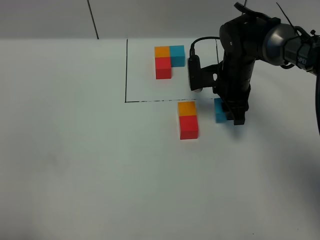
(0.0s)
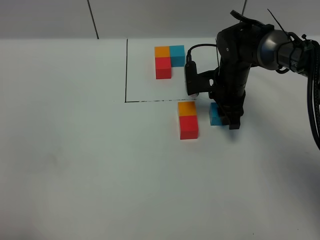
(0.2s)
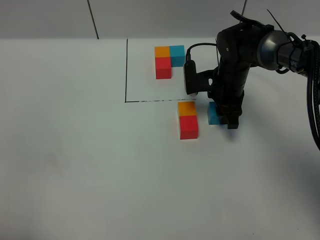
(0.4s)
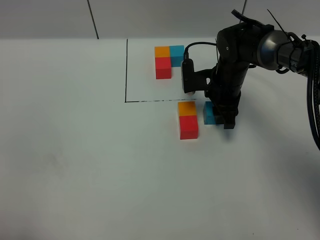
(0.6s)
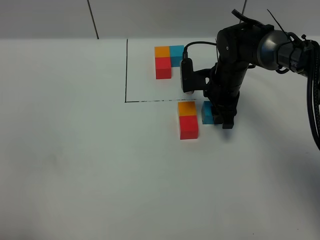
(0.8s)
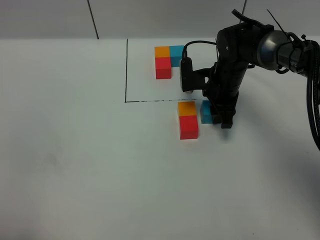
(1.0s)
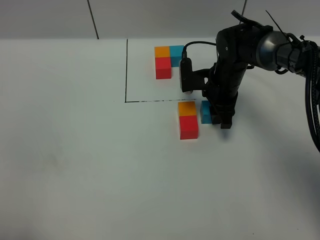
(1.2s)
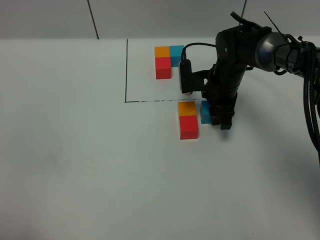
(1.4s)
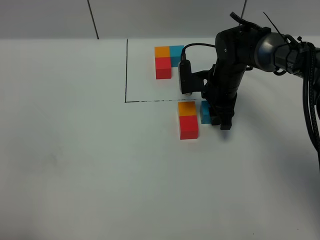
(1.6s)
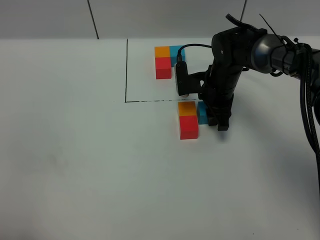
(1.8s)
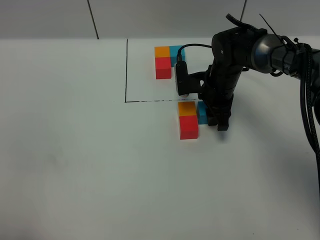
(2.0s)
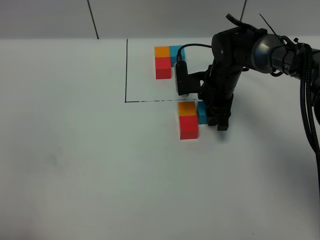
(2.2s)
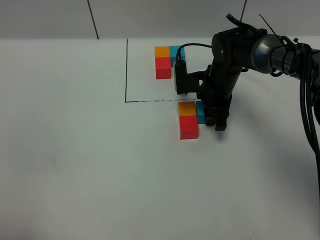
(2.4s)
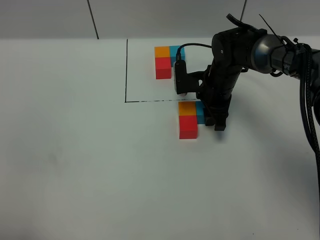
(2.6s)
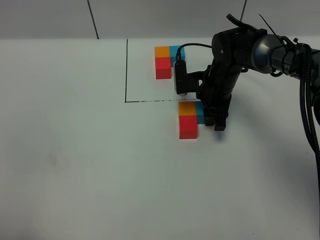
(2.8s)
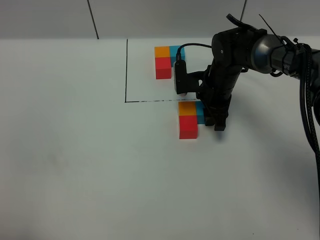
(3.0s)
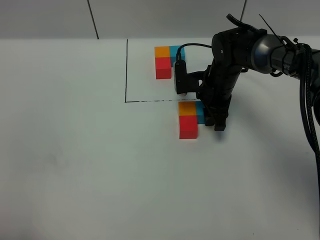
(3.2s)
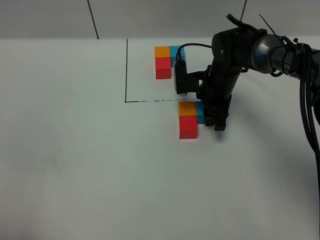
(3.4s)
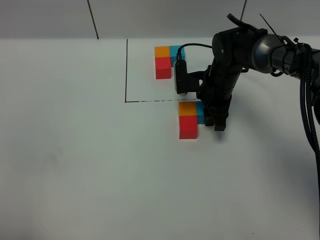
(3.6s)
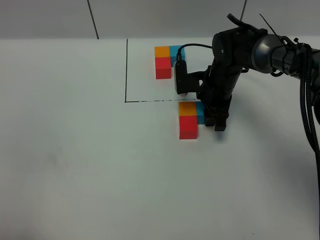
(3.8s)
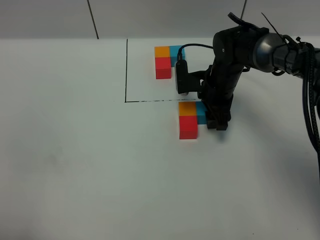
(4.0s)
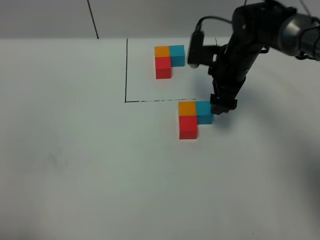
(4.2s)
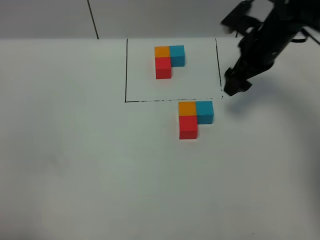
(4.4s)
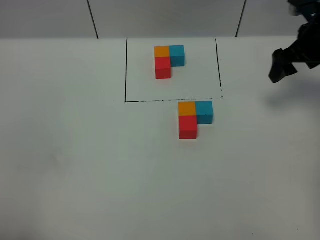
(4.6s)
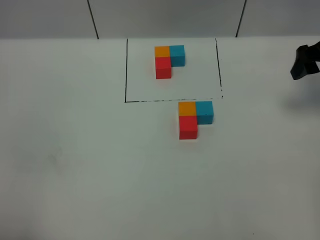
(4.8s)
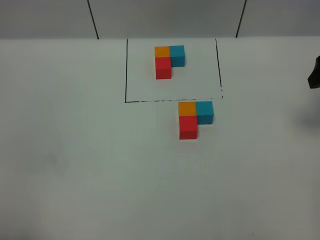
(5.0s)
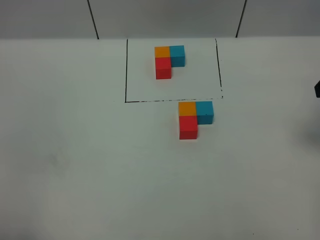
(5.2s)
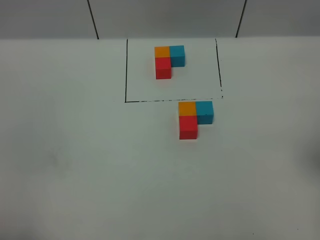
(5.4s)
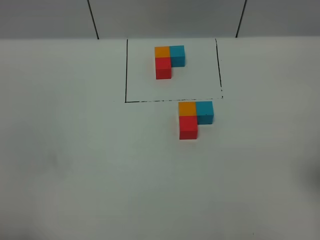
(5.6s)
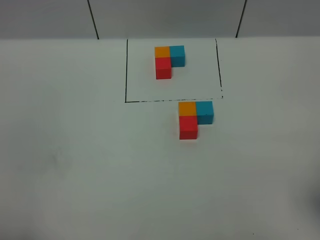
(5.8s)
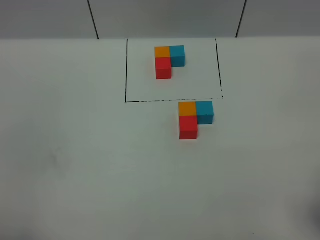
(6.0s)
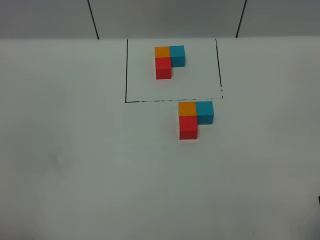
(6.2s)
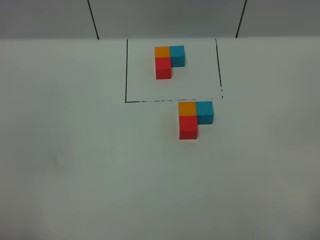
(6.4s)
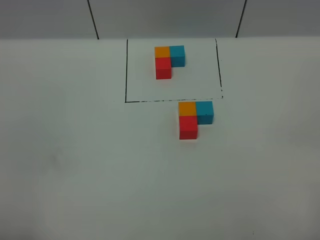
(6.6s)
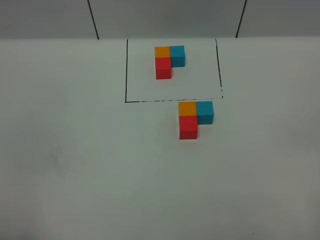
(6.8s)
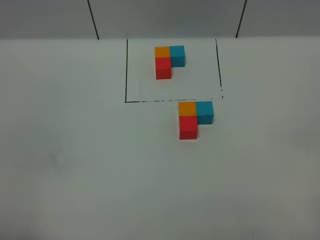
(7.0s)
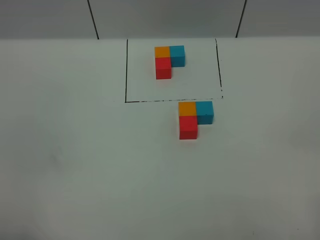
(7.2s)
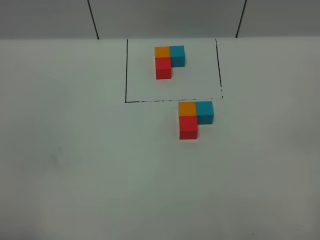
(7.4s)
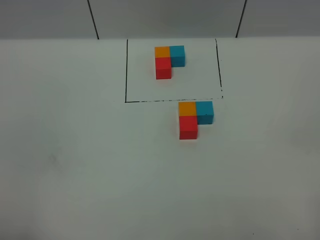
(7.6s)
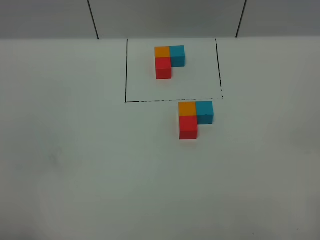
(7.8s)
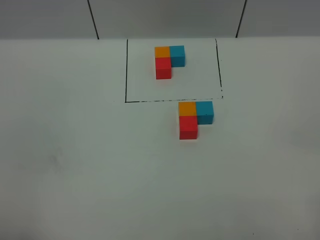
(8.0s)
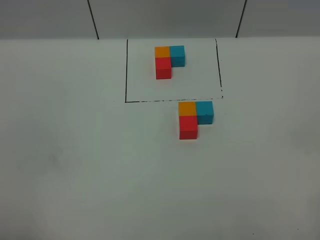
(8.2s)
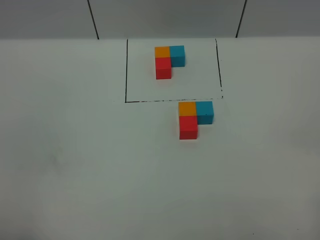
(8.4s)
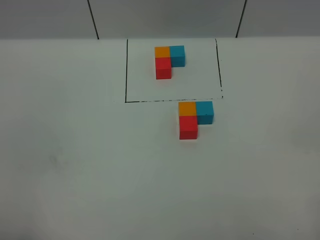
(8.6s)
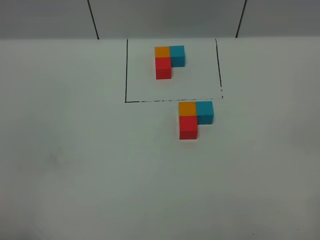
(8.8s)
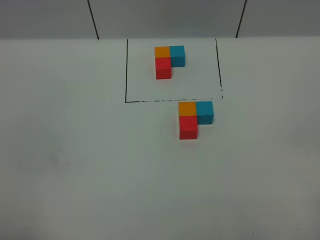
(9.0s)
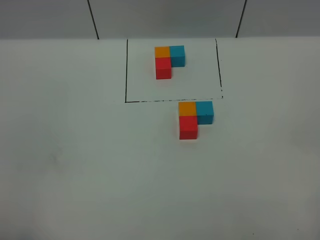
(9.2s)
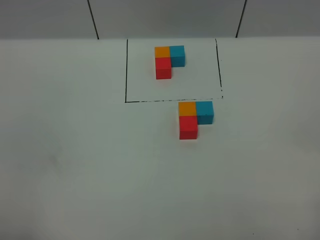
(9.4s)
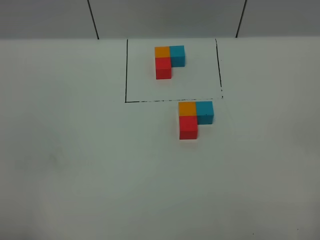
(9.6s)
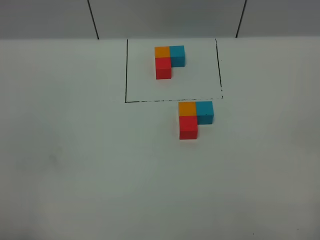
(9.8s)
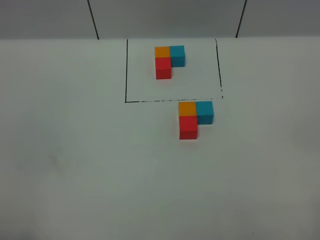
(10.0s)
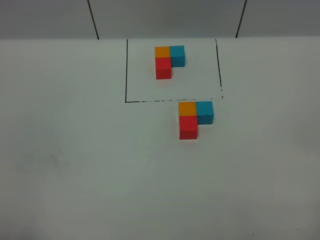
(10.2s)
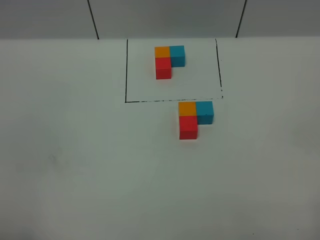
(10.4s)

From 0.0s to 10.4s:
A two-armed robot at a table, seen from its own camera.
Task of the whole recording: According to the building block template in front, assemble the scattered blocks together.
Step, from 0.0s to 3.8s: Put the blue build block on the right of the orange build block.
From 0.0s to 1.4s: The grippers stay close to where they were, moving slightly.
From 1.4s to 3.0s: Both grippers stay put.
From 3.0s to 4.4s: The right gripper shifts some 15 cm upward and to the right, and opens up.
From 4.4s to 6.0s: The right gripper is displaced backward by some 35 cm.
From 7.4s to 9.0s: The two grippers keep their place.

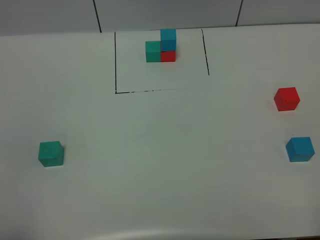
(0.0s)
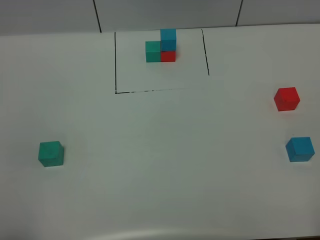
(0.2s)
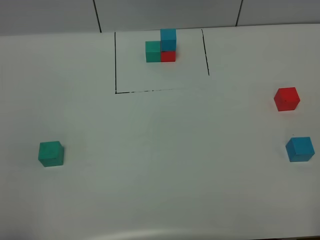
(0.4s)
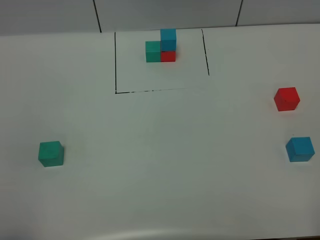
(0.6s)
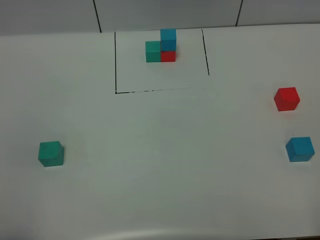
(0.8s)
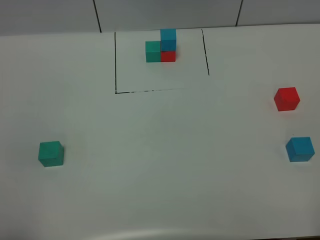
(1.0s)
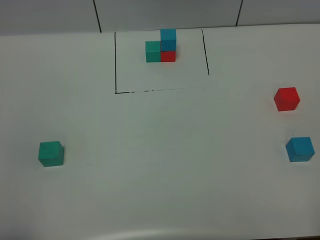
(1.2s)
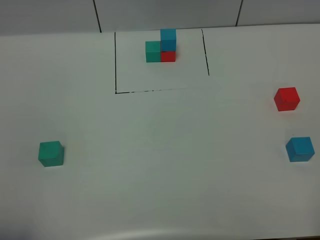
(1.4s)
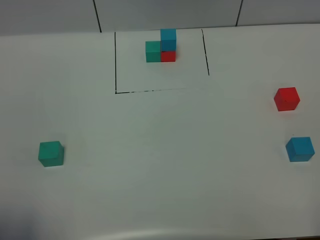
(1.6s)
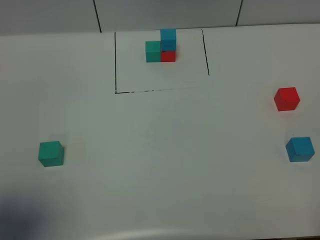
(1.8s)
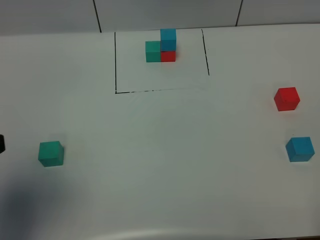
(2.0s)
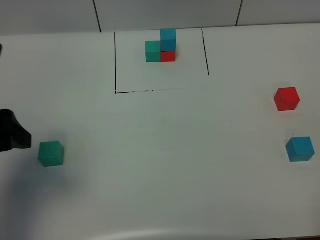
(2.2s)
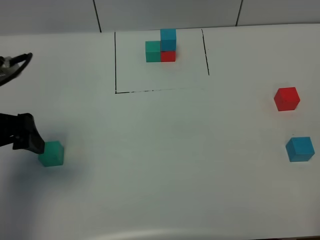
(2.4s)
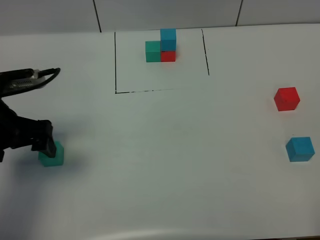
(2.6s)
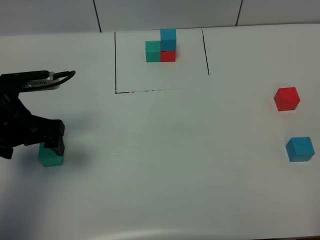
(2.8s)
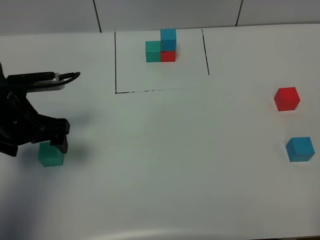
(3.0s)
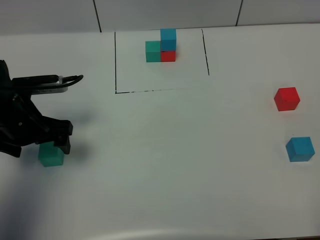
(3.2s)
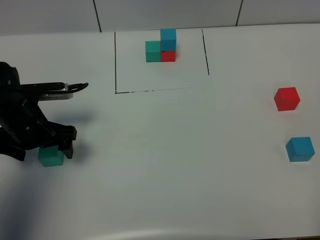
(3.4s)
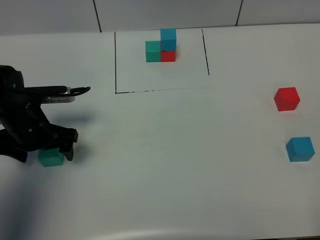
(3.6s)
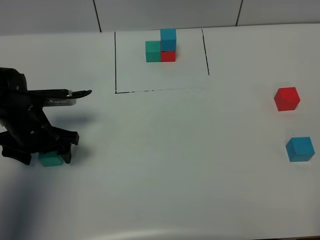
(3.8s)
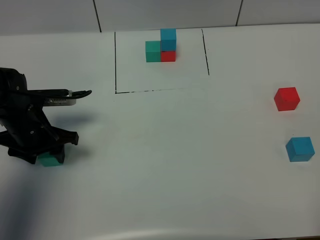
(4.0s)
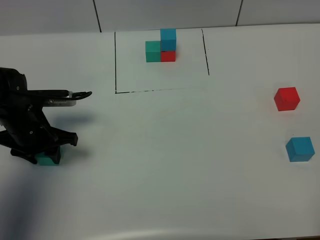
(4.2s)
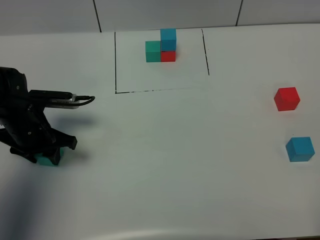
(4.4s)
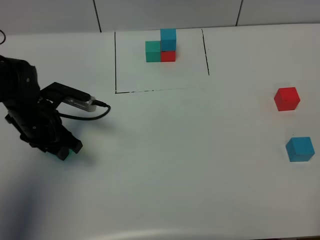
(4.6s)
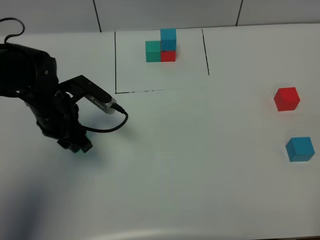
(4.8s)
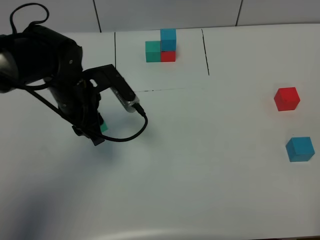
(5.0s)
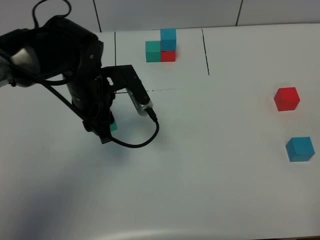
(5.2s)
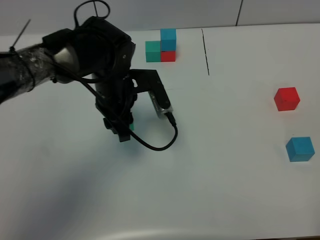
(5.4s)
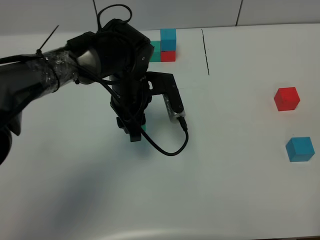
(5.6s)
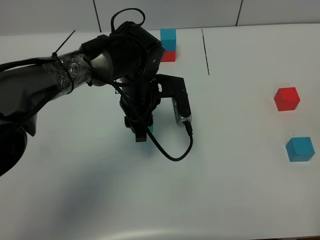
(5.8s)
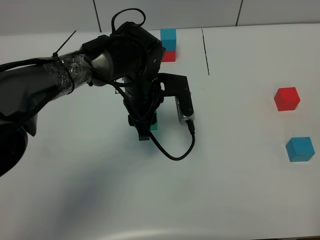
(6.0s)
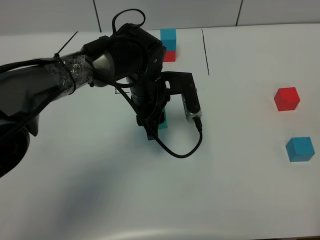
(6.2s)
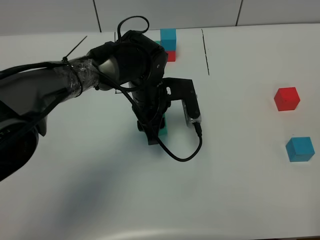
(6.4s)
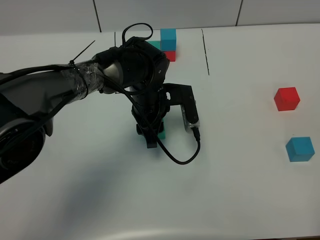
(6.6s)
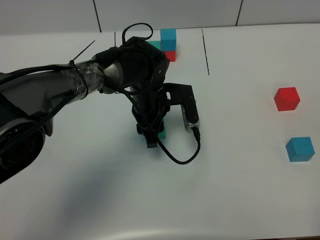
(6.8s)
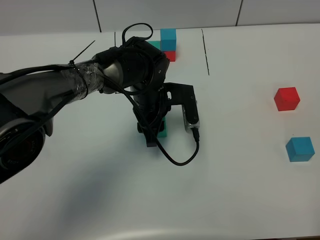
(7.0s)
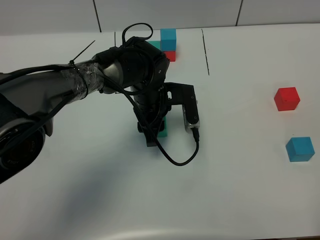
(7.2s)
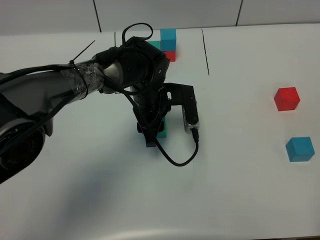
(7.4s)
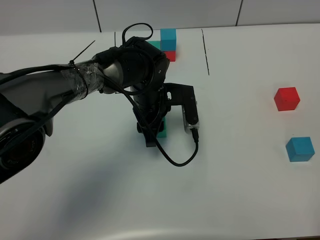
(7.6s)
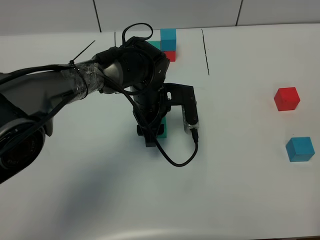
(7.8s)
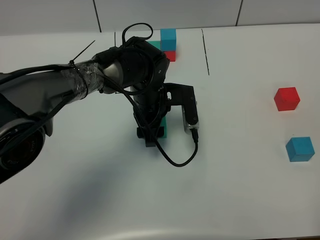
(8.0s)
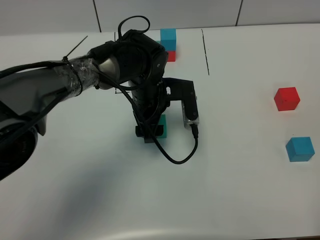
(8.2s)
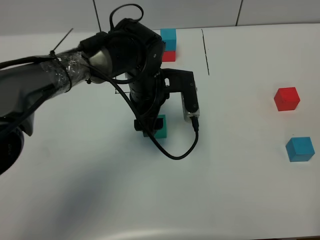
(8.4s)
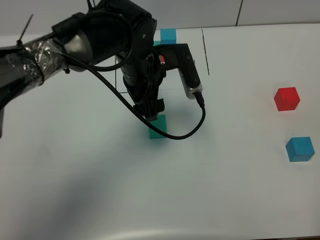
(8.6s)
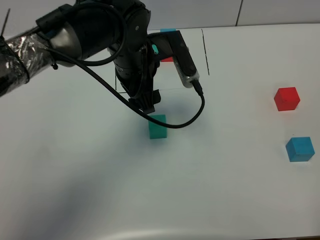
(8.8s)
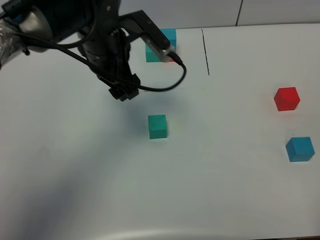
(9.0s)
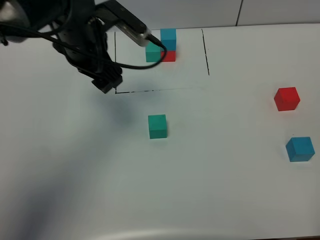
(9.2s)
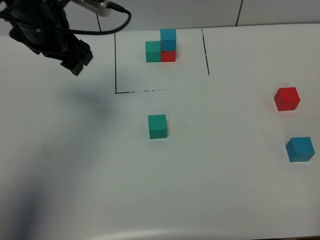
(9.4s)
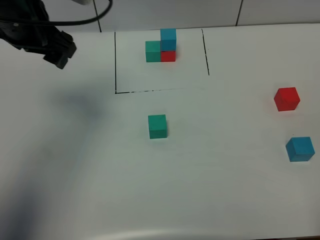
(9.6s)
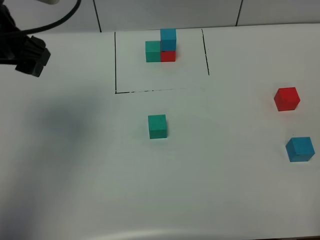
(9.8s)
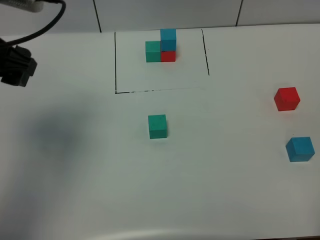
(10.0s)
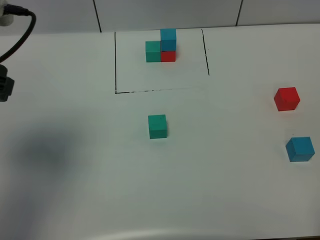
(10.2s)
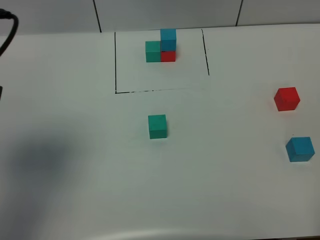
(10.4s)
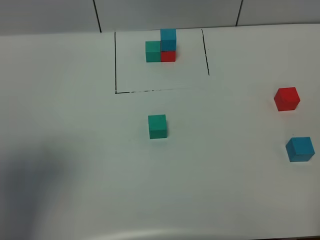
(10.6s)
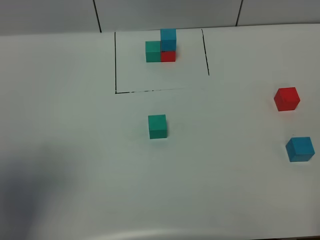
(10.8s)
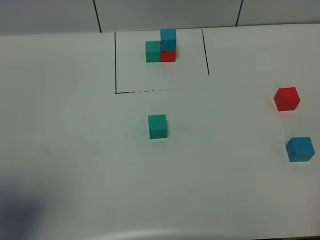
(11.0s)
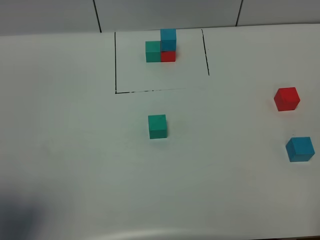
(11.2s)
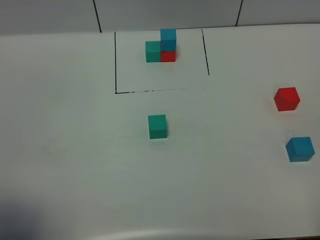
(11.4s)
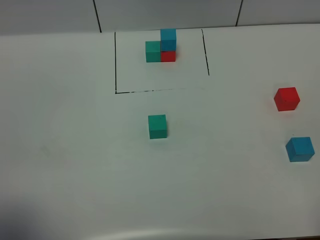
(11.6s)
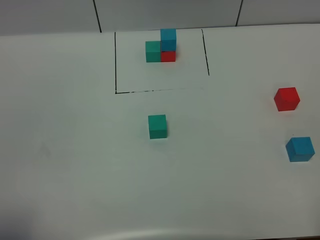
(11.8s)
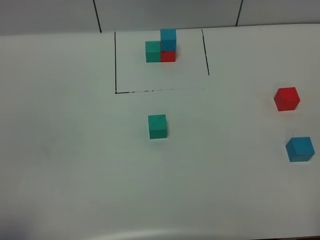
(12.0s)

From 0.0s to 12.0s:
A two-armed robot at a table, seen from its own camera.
Task of the whole recording: According to the building block template in front, assemble the scattered blocks together.
Step, from 0.0s to 8.2s: Put the green build block in the center of the table.
From 1.6s to 3.0s: The left gripper is displaced forward and downward by roughly 30 cm.
From 3.0s to 4.4s: The left gripper shifts roughly 5 cm downward, and closes up.
From 4.4s to 6.0s: The left gripper heads to the right, covering approximately 20 cm.
From 6.0s to 7.6s: There are only small adjustments of the grippers.
From 7.6s to 9.0s: The left gripper shifts some 15 cm upward and to the left, and opens its fingers.
From 9.0s to 10.4s: The left gripper goes some 25 cm backward, to the left and upward.
From 10.4s to 12.0s: The left gripper moves backward, roughly 20 cm.
